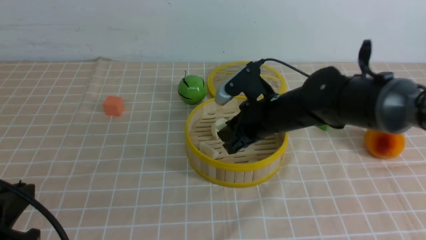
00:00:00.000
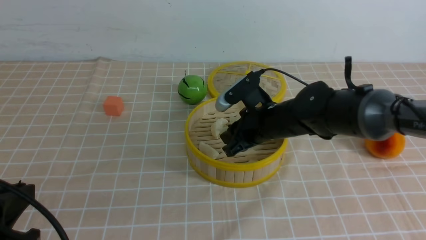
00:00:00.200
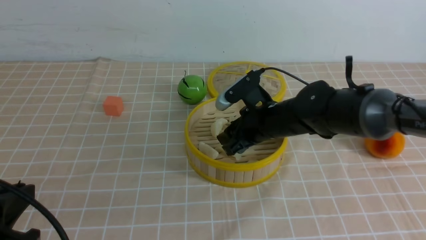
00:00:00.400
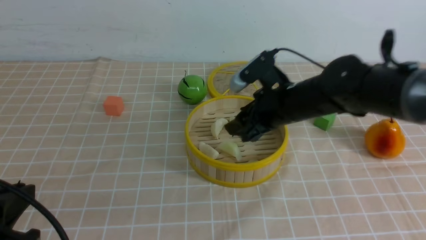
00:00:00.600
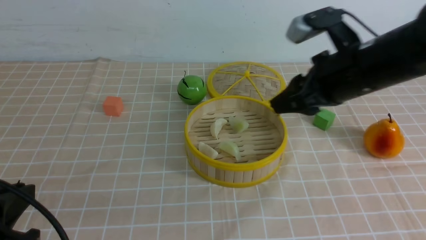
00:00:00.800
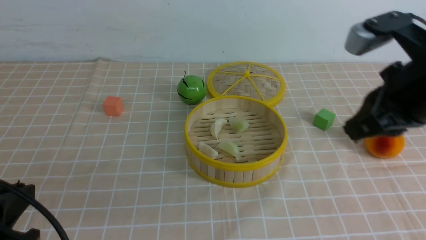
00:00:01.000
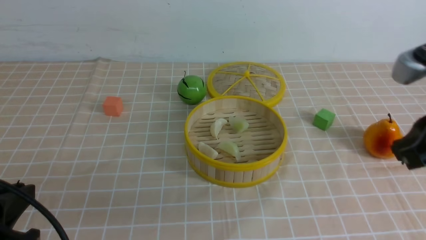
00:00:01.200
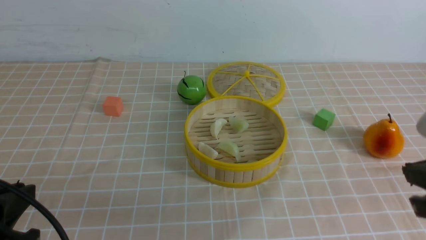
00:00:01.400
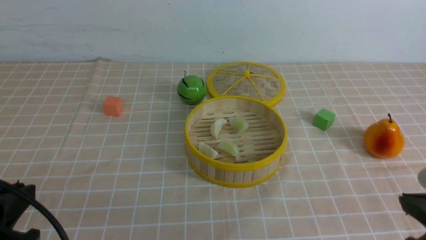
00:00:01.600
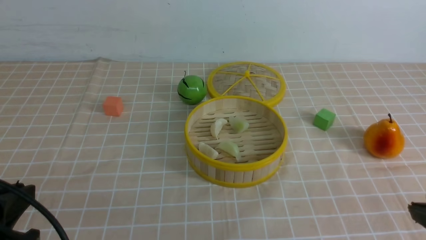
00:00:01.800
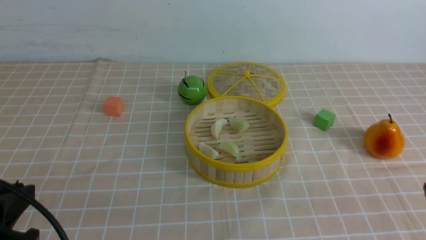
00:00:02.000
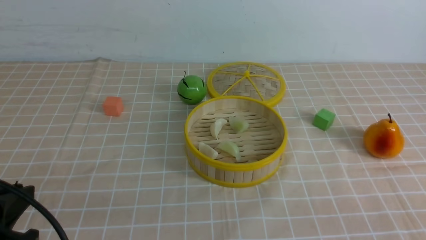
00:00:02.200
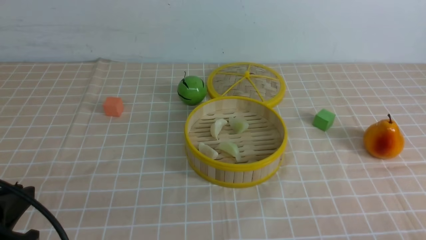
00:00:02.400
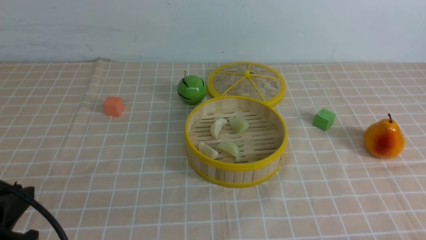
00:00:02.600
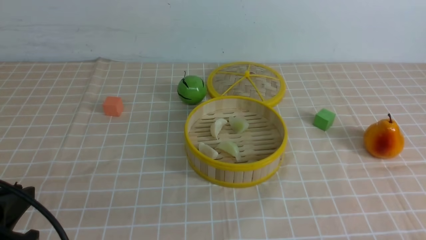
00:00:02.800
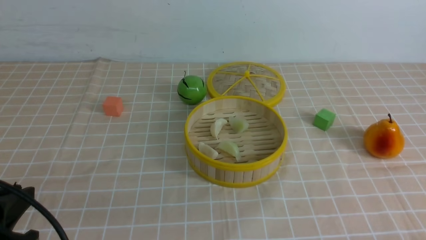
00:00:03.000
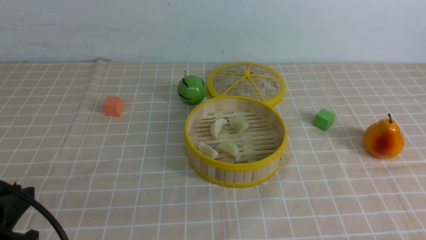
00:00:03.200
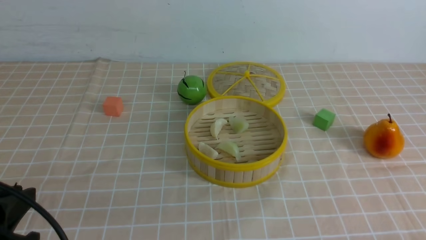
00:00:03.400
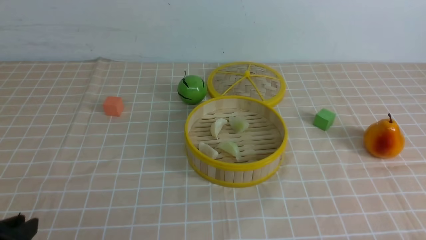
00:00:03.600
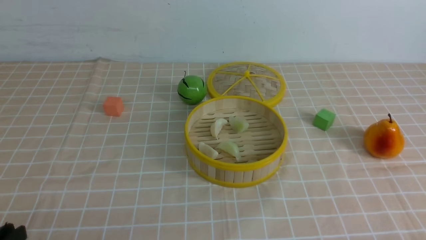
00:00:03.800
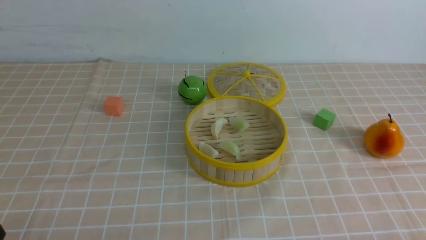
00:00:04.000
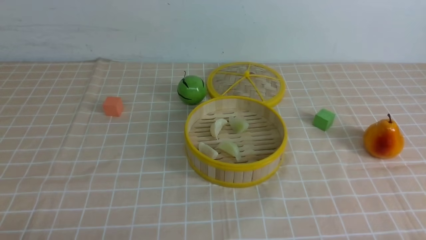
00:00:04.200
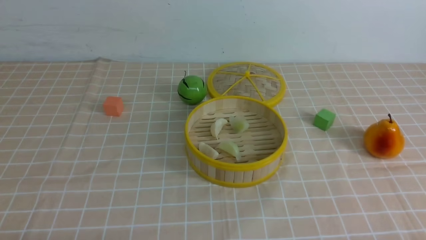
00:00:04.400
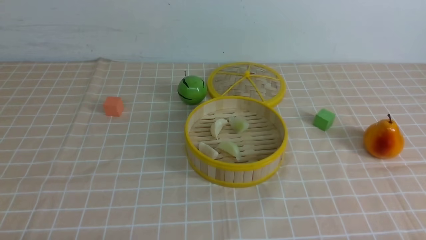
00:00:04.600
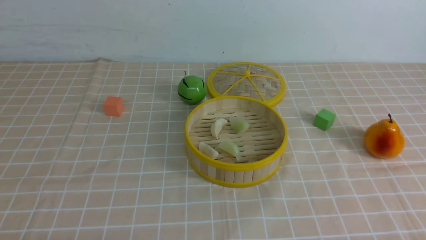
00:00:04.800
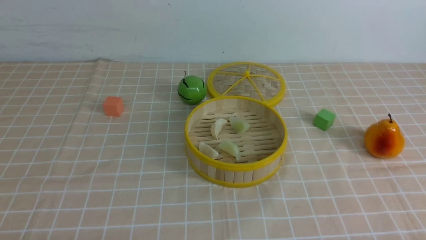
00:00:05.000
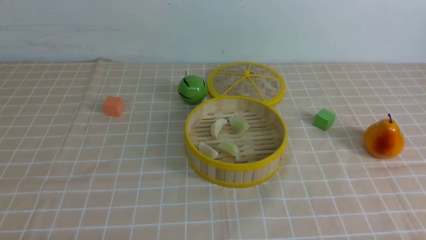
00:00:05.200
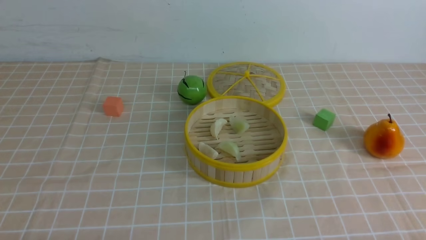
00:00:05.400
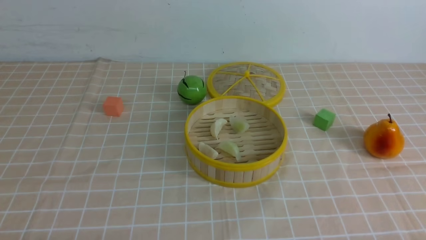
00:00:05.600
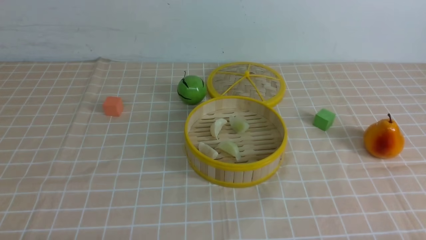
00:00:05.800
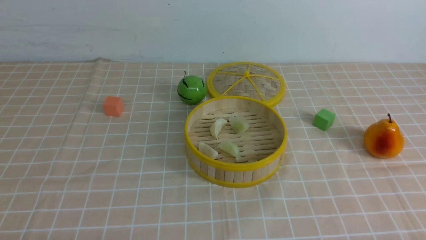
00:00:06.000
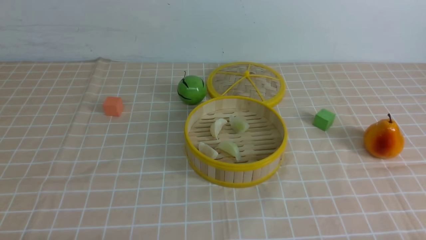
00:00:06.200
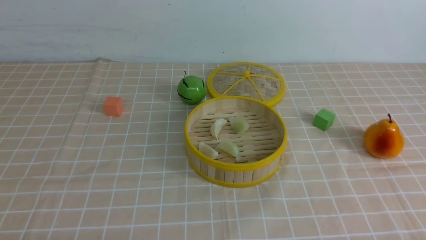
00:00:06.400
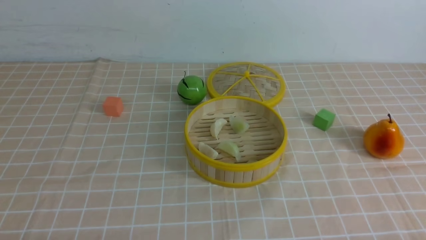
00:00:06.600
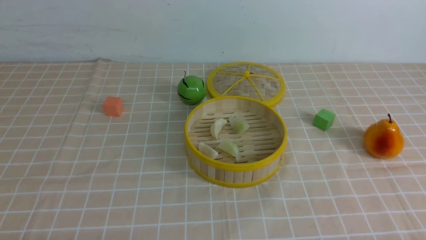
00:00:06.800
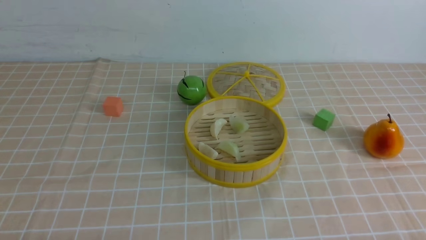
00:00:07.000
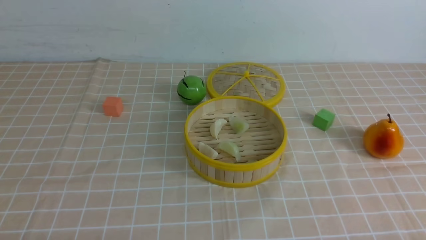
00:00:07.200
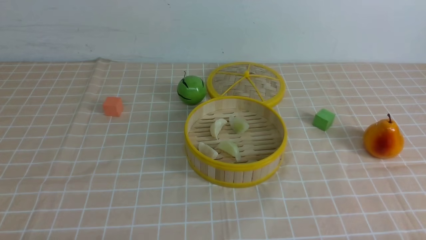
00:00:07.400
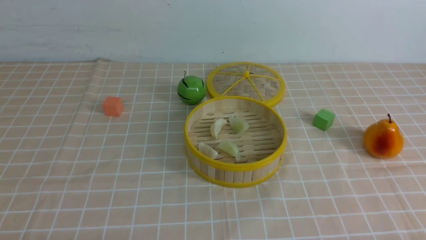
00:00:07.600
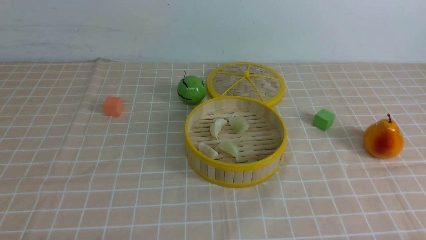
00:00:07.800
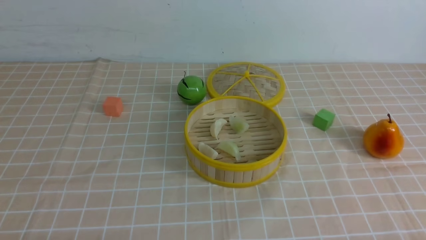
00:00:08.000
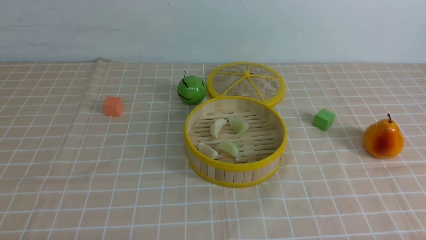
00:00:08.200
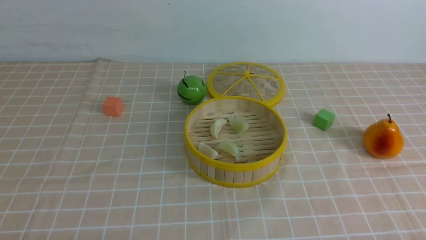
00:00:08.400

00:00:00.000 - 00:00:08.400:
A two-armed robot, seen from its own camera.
Task of the whole recording: put the dumplings into the steamer on the table with the brown tablecloth.
00:00:00.000 - 00:00:01.400: The right gripper shifts about 25 cm backward and to the right, and closes.
00:00:01.400 - 00:00:02.800: The right gripper heads downward and backward, covering some 20 cm.
00:00:02.800 - 00:00:04.200: The left gripper moves downward, some 10 cm.
00:00:05.600 - 00:00:08.400: Both grippers stay about where they are.
